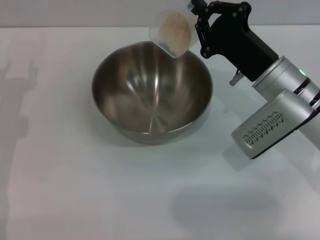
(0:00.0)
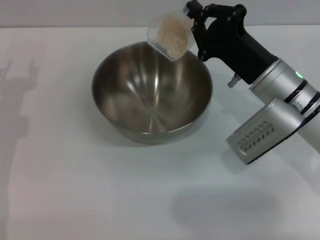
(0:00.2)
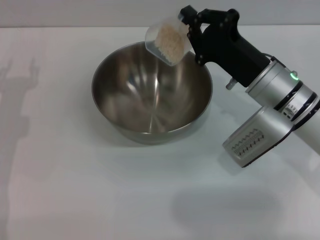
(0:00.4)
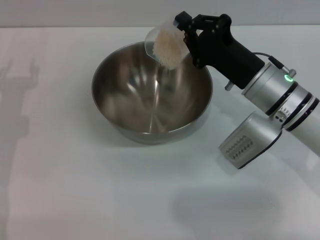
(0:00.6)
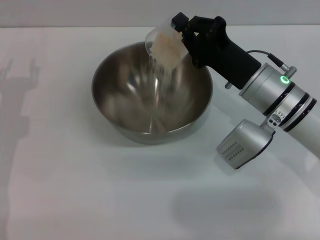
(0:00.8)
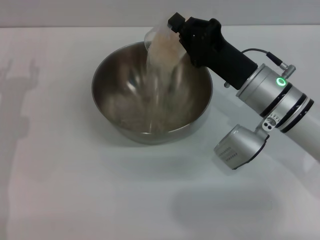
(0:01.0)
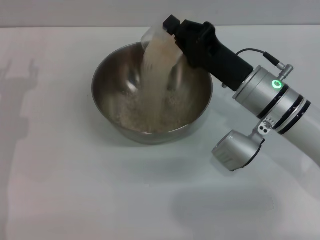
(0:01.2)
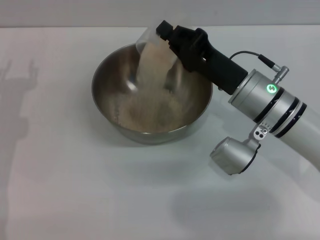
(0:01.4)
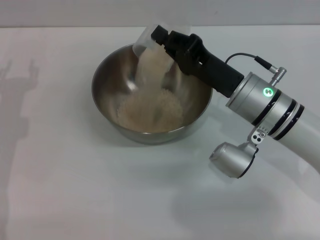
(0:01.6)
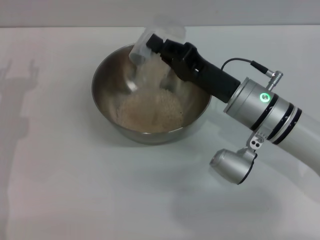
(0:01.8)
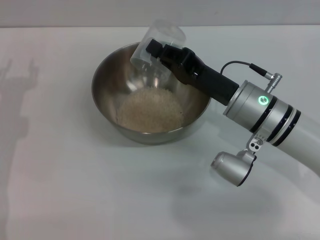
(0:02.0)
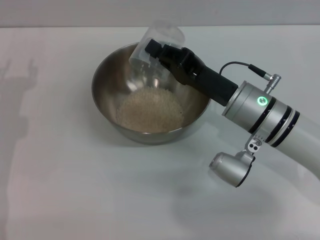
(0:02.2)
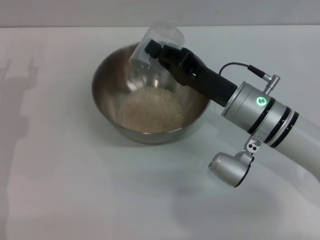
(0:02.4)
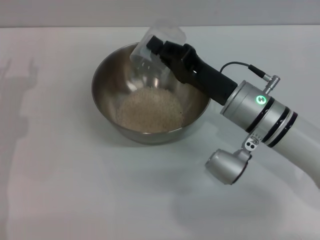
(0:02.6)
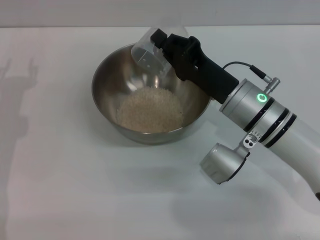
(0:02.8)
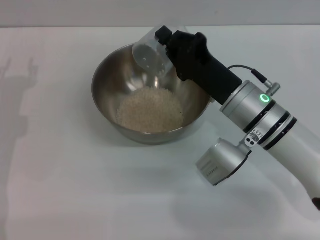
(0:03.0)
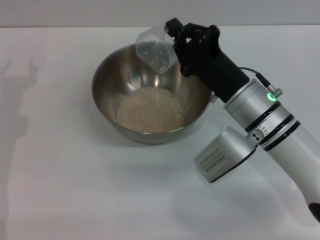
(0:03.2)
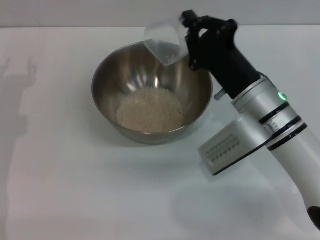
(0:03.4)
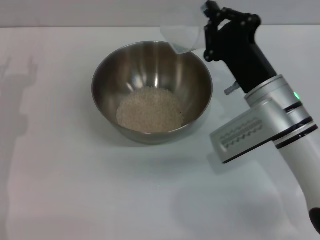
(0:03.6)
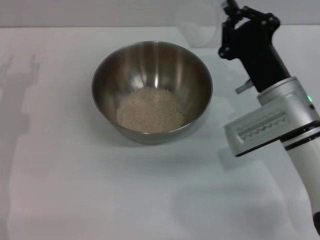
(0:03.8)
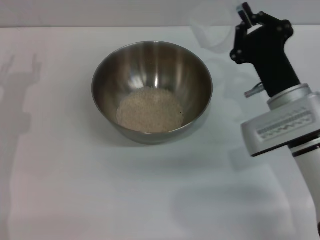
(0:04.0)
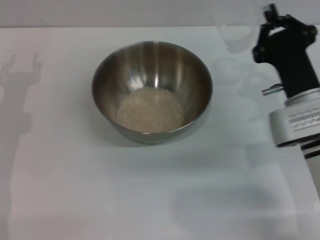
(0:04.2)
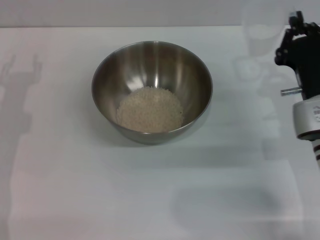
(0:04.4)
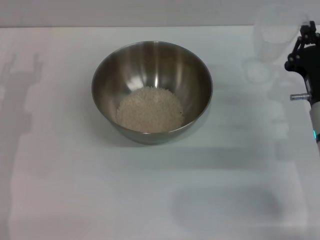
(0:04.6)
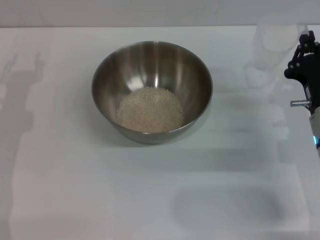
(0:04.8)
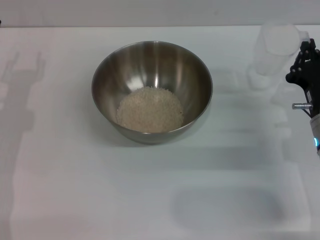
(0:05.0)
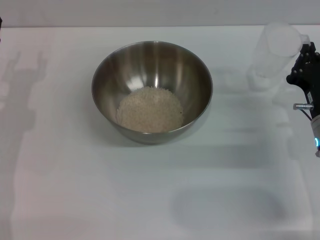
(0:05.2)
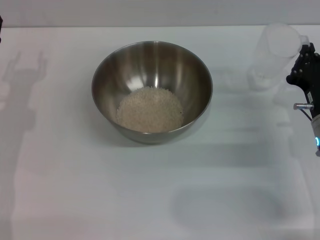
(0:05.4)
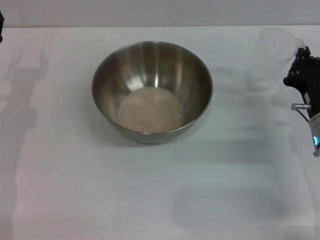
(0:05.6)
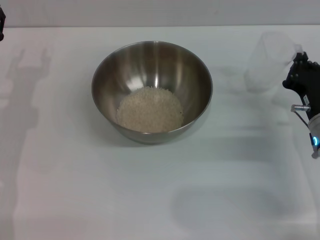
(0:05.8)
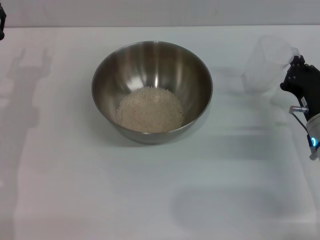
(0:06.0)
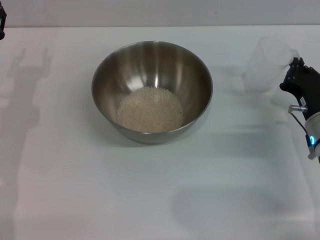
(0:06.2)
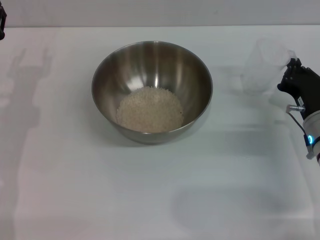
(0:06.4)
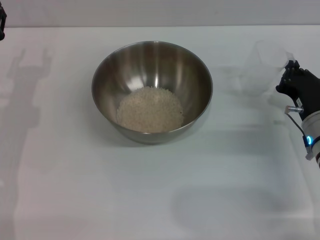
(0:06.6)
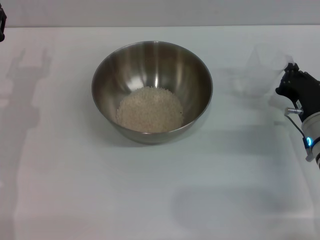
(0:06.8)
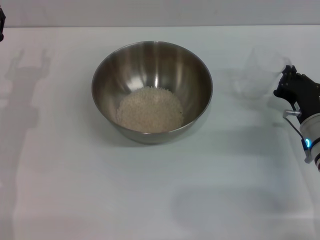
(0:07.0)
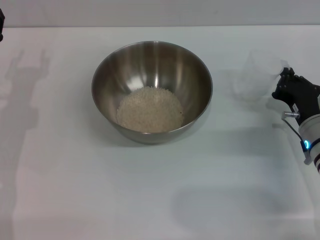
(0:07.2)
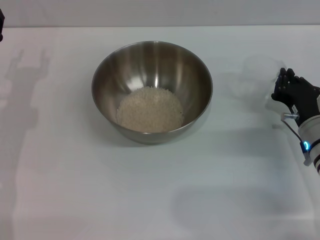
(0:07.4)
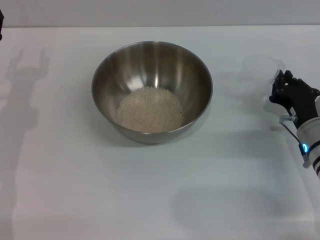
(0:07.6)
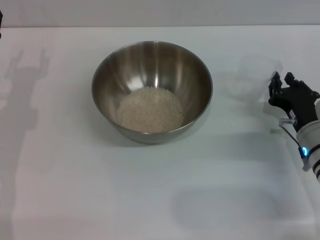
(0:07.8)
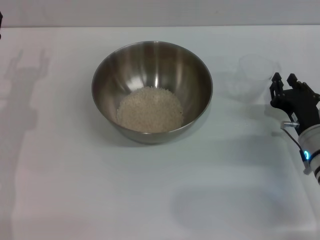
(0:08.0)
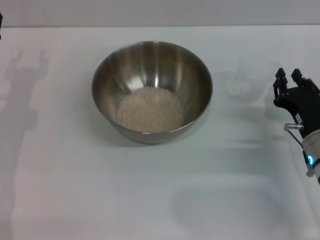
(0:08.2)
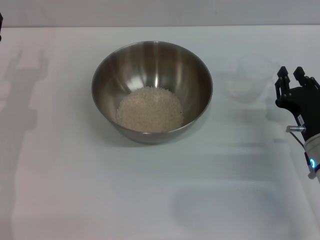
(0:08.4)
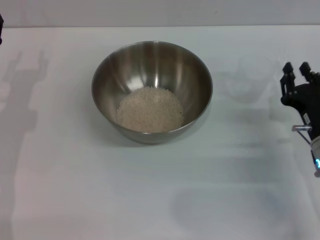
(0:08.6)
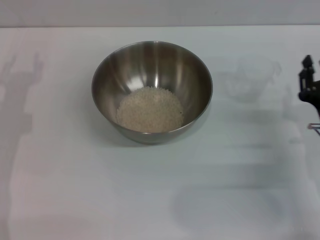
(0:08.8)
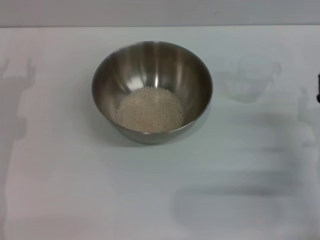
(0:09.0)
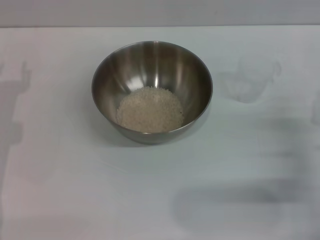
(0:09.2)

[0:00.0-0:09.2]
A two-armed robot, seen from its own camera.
Task of the whole recording: Place the bowl in the middle of the table with one hand and pour the rice from the grain cup into it with the other hand.
Step, 0:00.0 to 0:03.6: Pour the rice from the cup into the bowl with the right gripper.
Step, 0:03.8 to 0:08.0: Place the cup on the table with the right gripper.
0:01.6 to 0:03.0: The grippers move only a little.
0:03.0 to 0:04.6: The right gripper is displaced to the right by about 10 cm.
0:06.2 to 0:07.6: The grippers move only a little.
0:07.6 to 0:09.2: The right gripper heads backward, covering approximately 5 cm.
